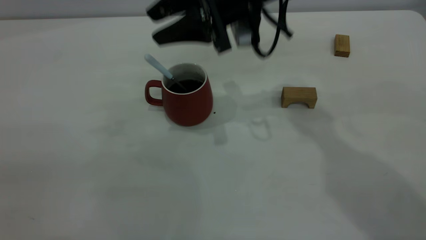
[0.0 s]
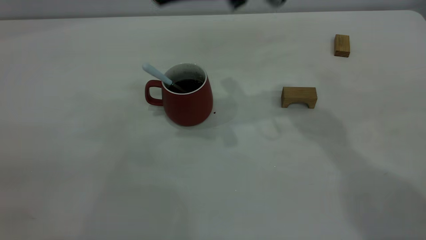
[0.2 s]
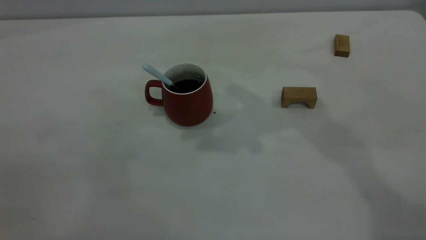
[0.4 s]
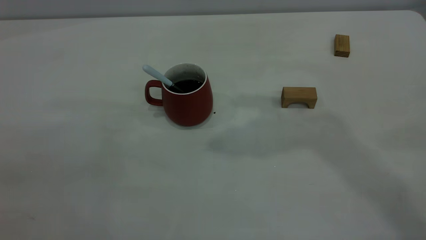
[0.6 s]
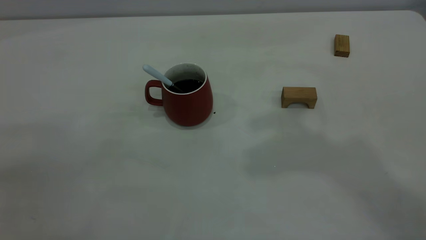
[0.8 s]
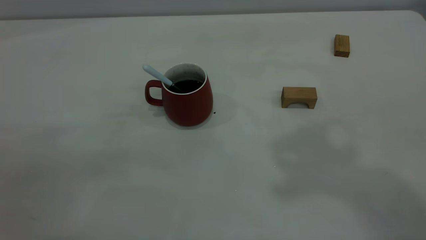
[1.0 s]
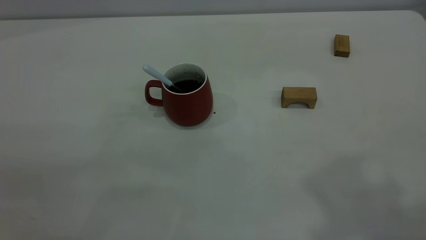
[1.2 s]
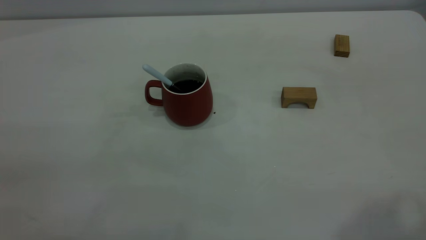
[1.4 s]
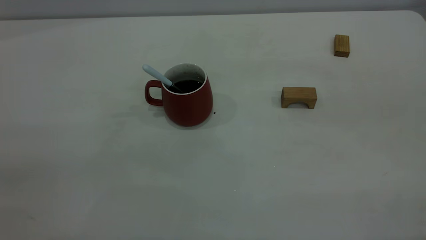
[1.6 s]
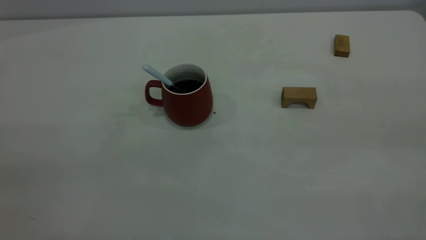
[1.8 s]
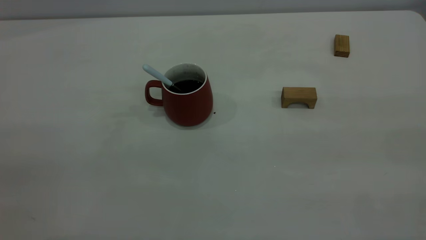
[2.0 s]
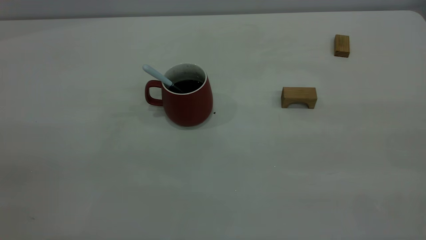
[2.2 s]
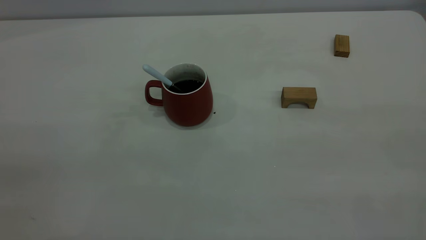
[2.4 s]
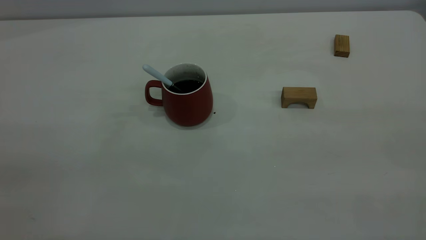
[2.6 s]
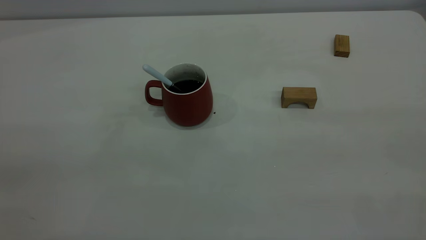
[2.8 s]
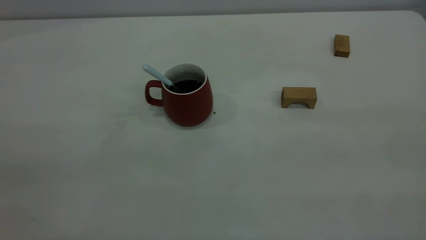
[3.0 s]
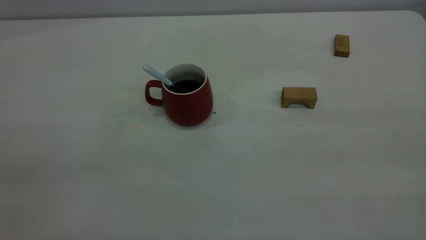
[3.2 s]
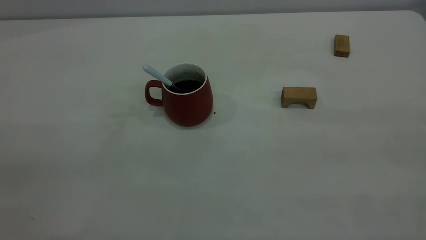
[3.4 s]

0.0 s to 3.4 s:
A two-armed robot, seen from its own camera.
0.0 to 1.6 s: The right gripper is displaced backward, upward and to the right by roughly 50 cm.
